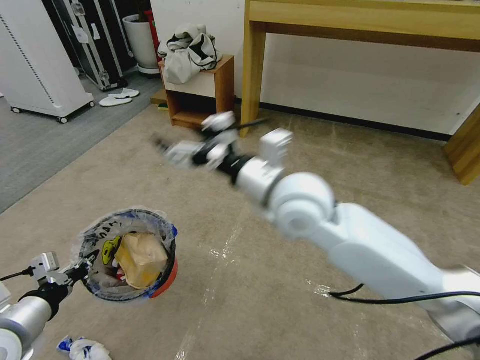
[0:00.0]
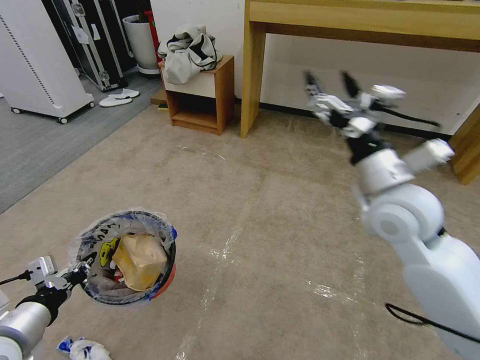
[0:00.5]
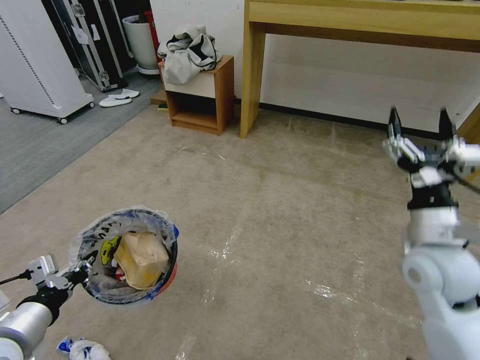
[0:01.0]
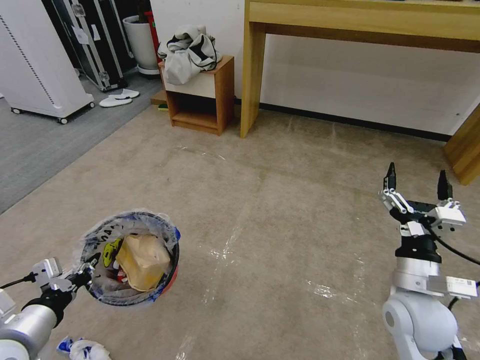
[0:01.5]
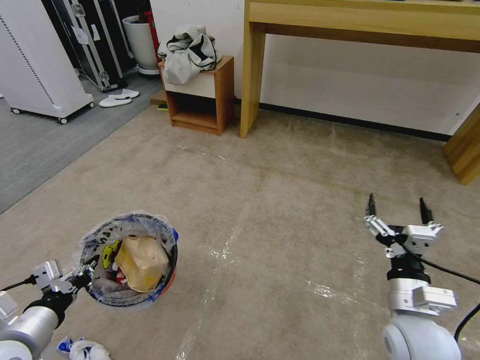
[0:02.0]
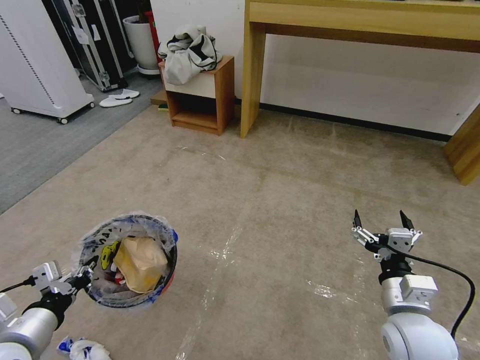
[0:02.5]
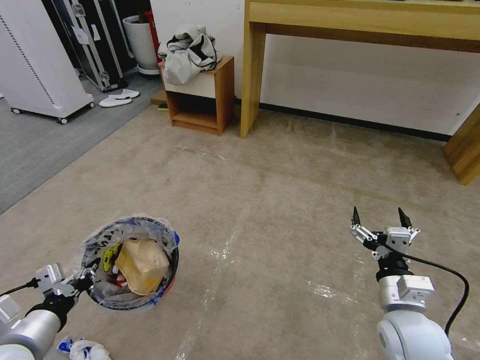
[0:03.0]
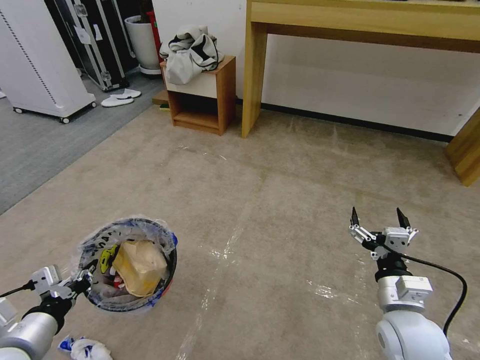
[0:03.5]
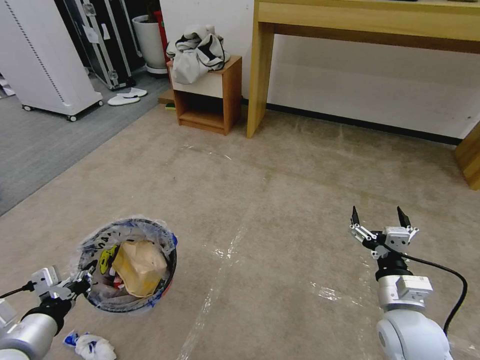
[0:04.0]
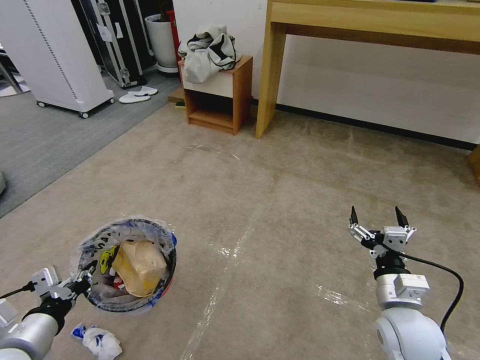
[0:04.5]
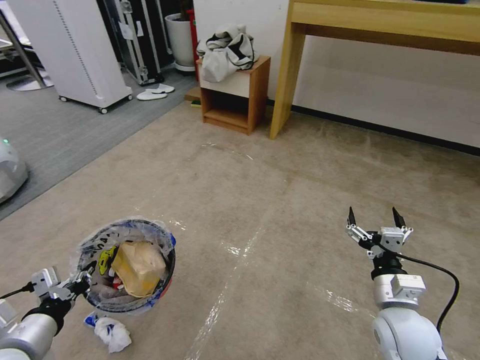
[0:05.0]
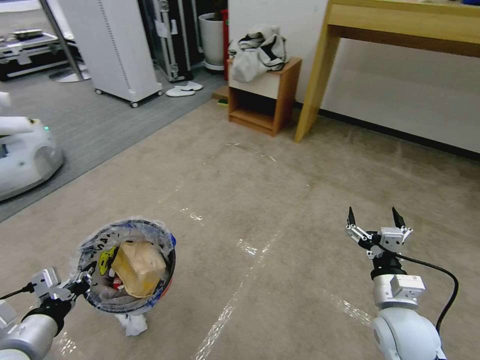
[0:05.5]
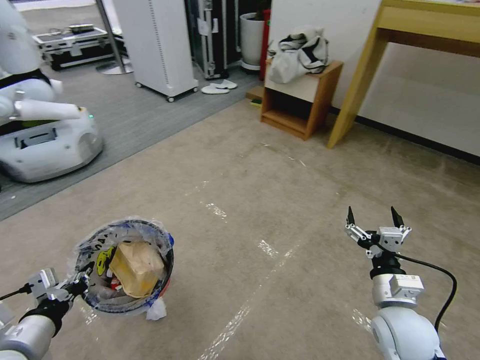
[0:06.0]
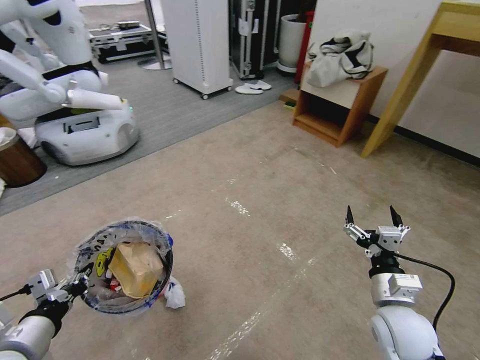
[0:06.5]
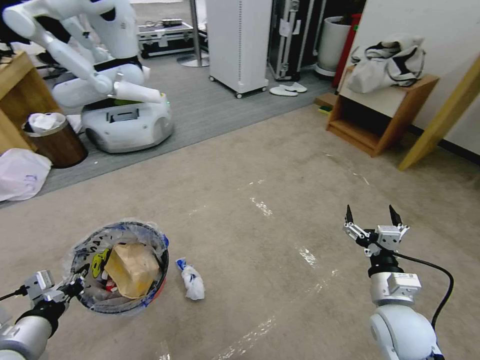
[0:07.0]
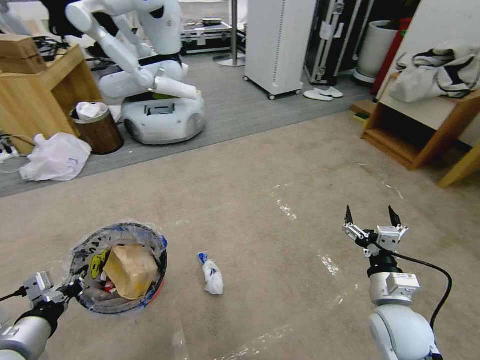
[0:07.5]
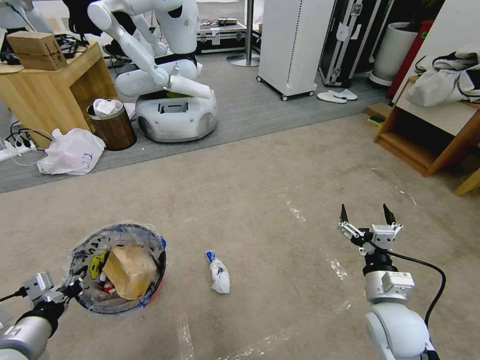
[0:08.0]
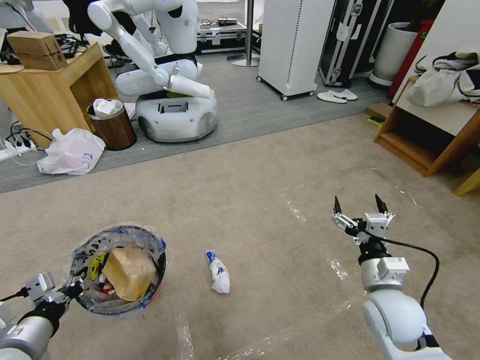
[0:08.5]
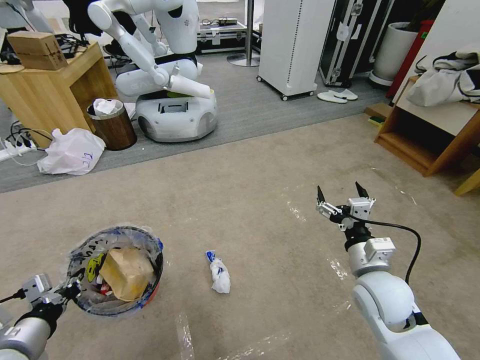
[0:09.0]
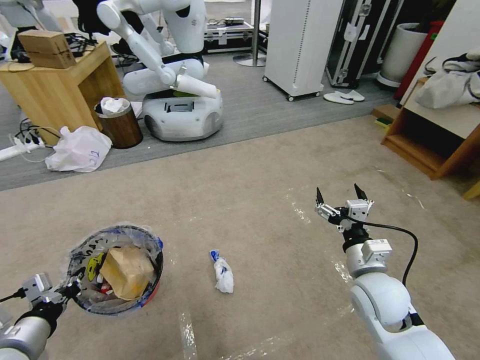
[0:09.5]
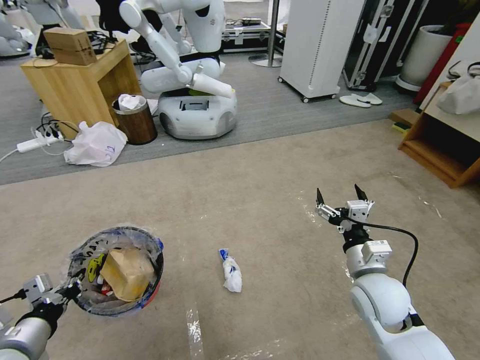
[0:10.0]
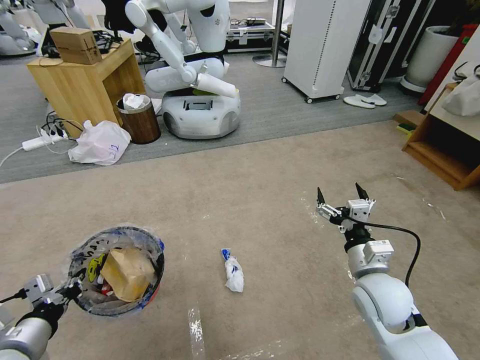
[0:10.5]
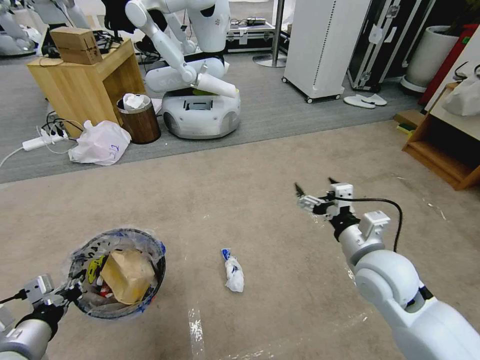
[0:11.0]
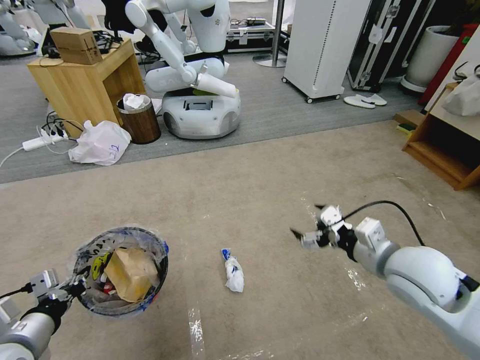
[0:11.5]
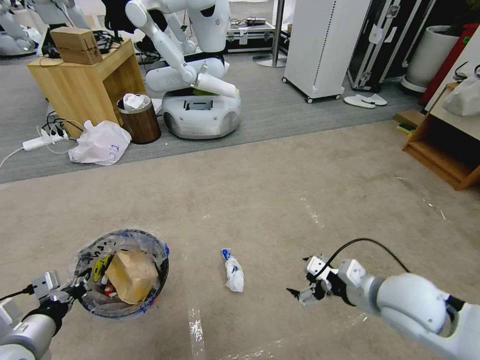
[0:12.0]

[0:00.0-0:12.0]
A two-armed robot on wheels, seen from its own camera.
Task of the whole recording: Pick up the trash bin and place the garbage on the floor into it.
0:00.0 to 0:02.0: The right gripper moves to the right, downward and backward, roughly 30 cm.
0:02.0 to 0:04.0: The grippers move only a little.
0:08.0 to 0:10.0: The right gripper shifts by some 5 cm.

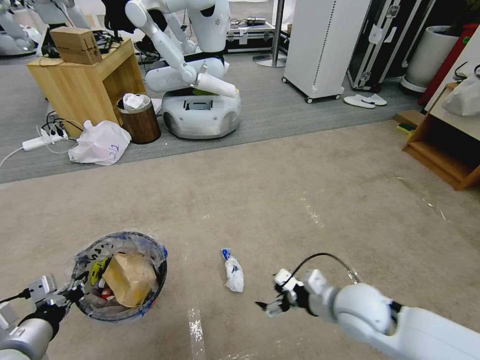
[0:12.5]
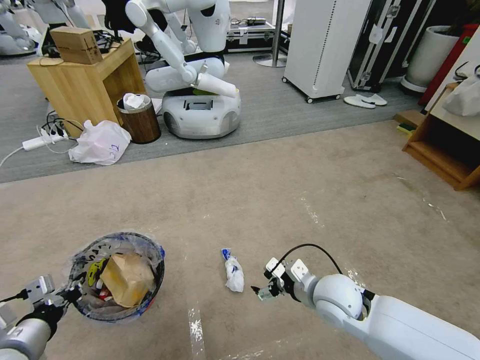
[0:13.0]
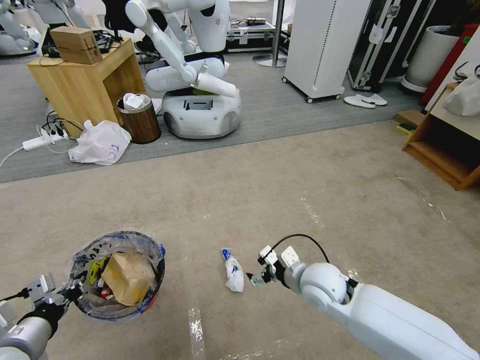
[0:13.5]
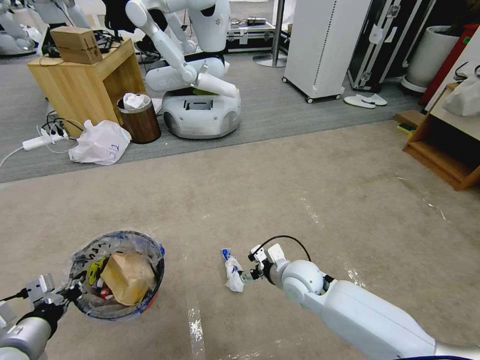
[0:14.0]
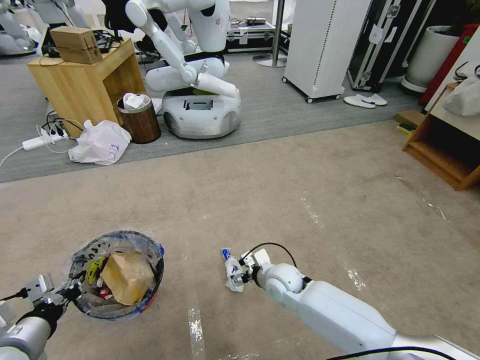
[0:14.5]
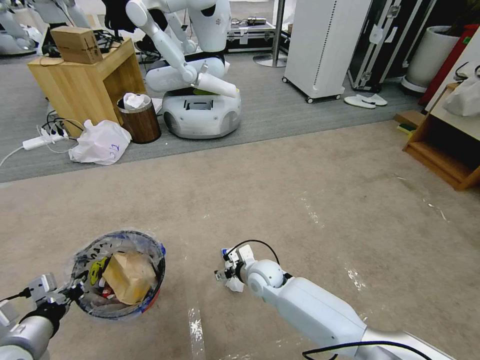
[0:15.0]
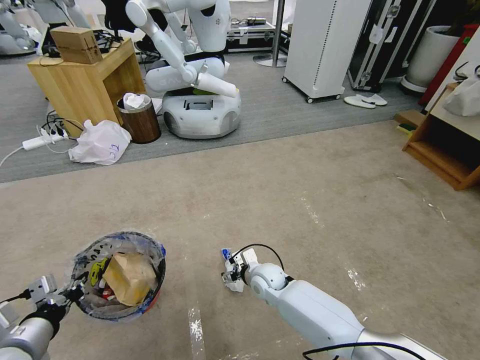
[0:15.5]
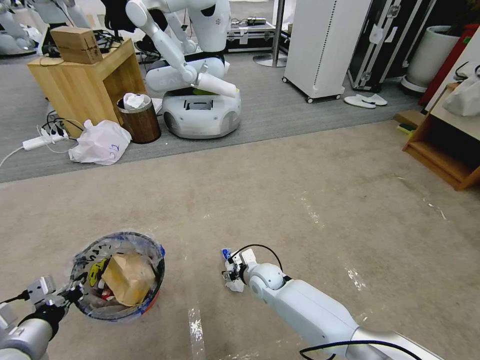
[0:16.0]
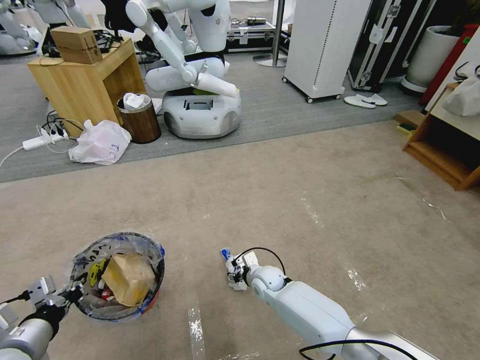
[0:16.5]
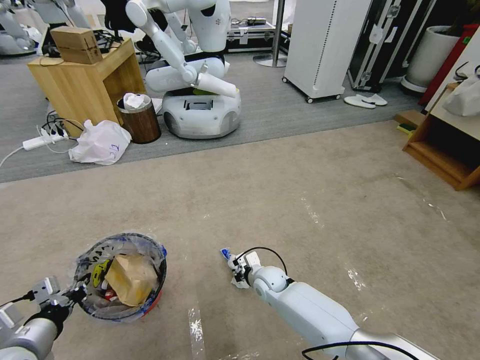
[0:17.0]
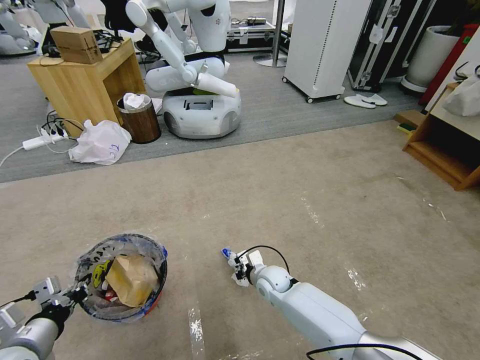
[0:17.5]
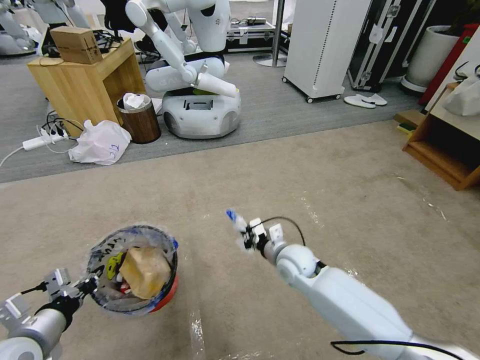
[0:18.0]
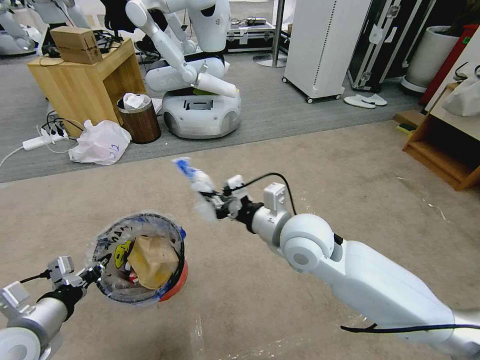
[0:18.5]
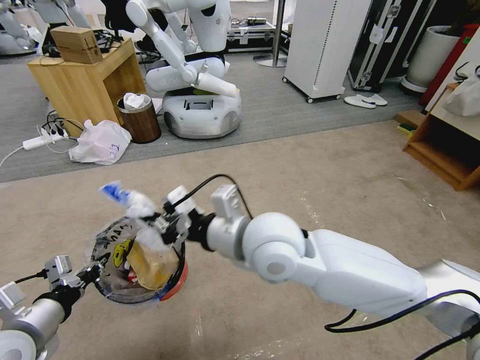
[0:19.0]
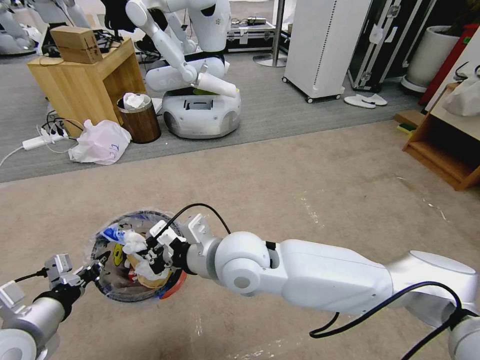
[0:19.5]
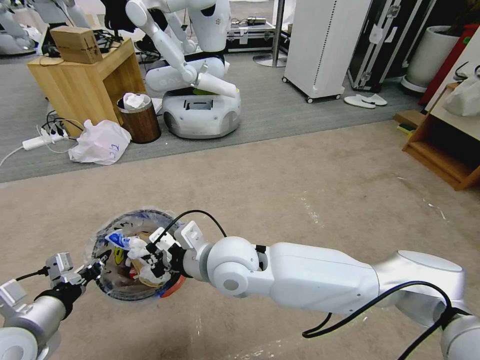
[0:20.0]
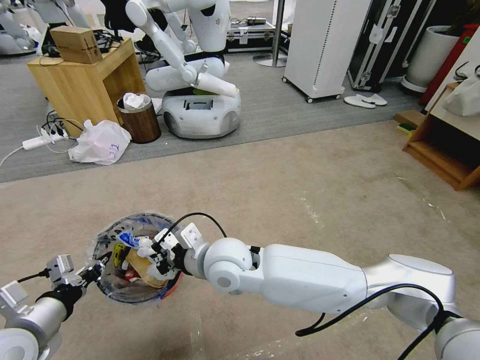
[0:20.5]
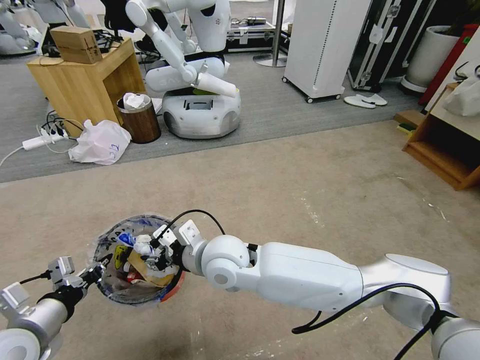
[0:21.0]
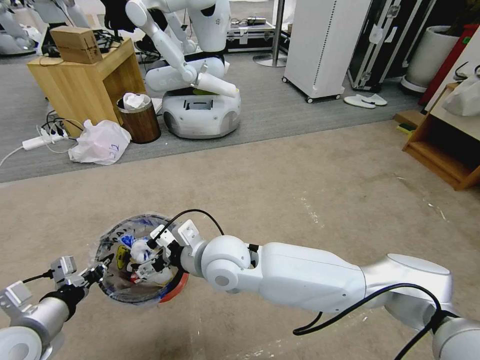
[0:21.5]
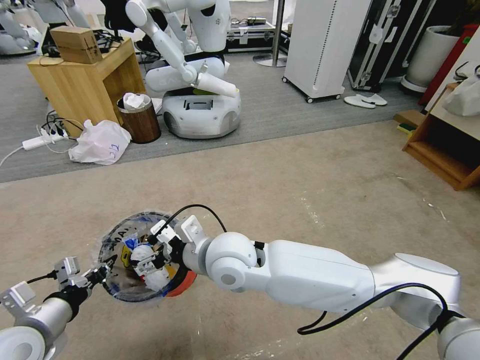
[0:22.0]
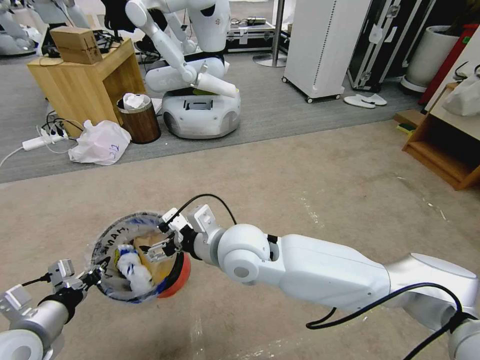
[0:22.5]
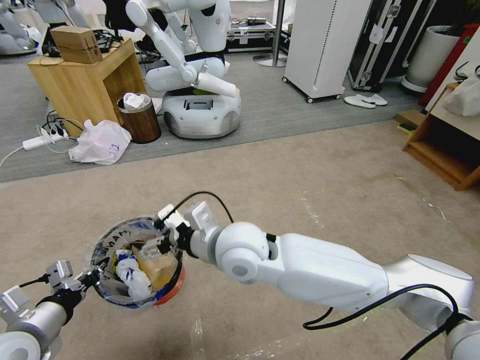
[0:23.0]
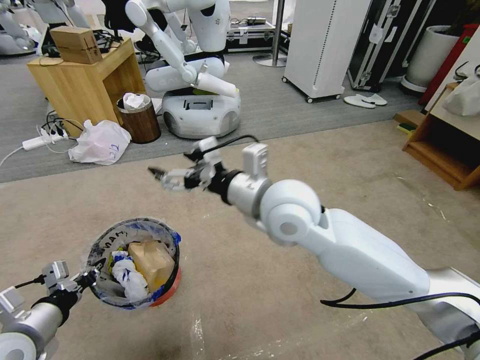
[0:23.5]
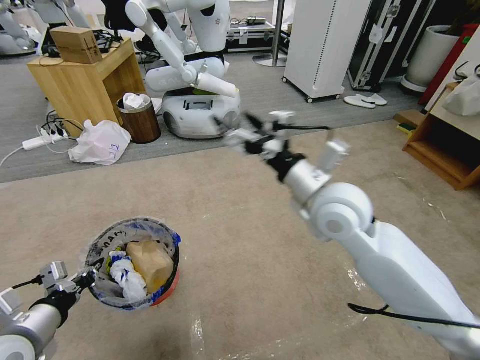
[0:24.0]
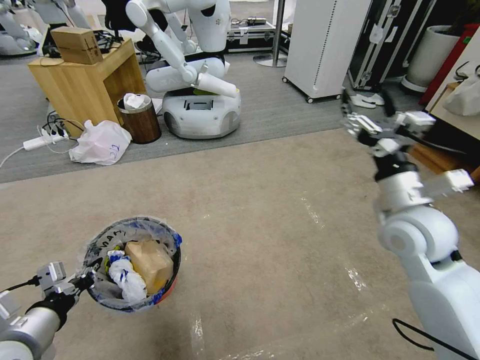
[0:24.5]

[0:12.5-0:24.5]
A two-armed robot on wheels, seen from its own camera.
Task of the whole recording: Pick up the trash bin and place the garbage on the floor into it.
0:12.5 to 0:14.5: The right gripper goes roughly 20 cm to the left, downward and forward.
0:14.5 to 0:16.5: The right gripper moves downward, about 5 cm.
0:16.5 to 0:18.5: The right gripper shifts some 30 cm upward, and closes its fingers.
0:18.5 to 0:20.5: The right gripper heads to the left, covering approximately 15 cm.
0:20.5 to 0:22.5: The right gripper shifts by some 5 cm, and opens.
0:22.5 to 0:24.5: The right gripper is displaced to the right by roughly 30 cm.

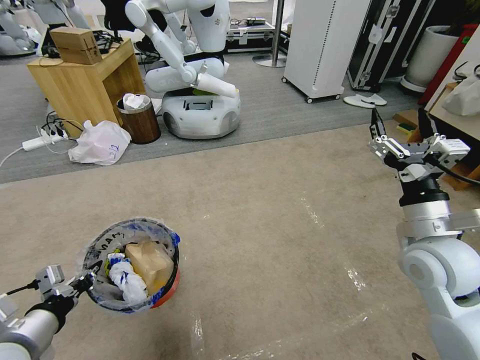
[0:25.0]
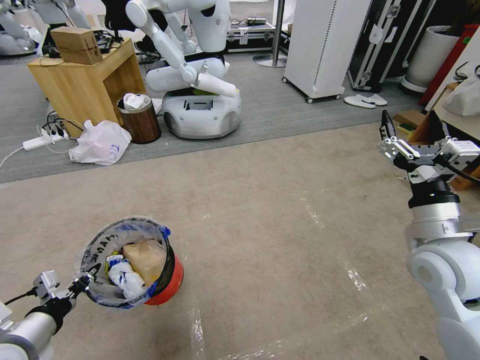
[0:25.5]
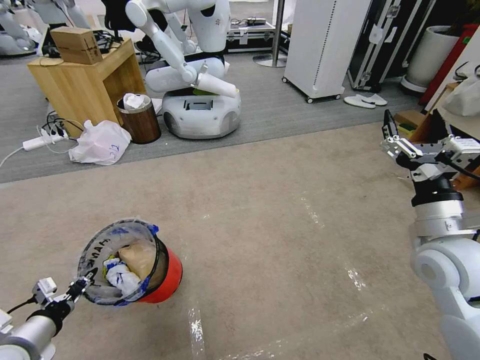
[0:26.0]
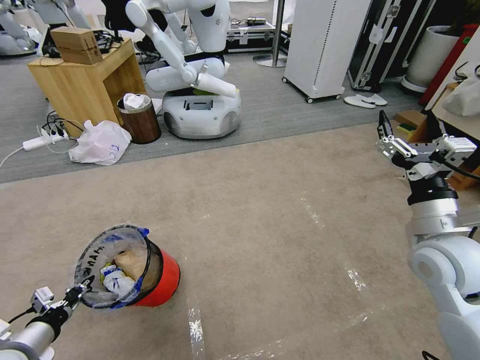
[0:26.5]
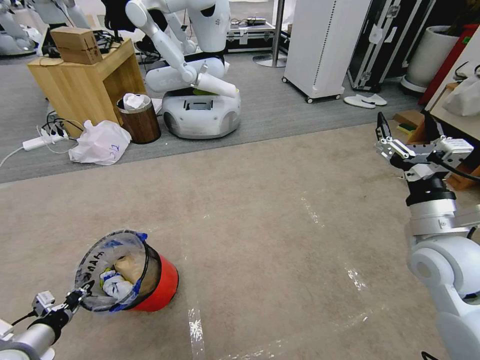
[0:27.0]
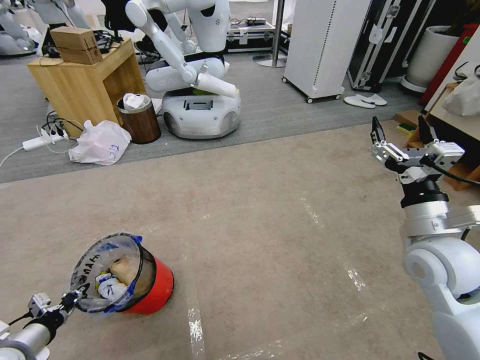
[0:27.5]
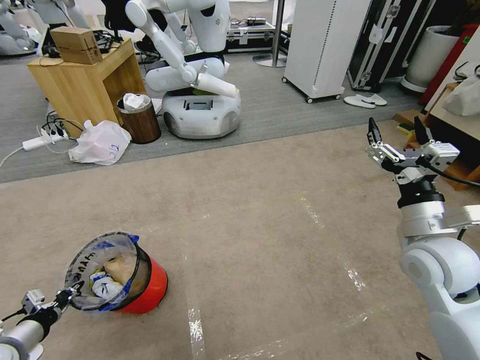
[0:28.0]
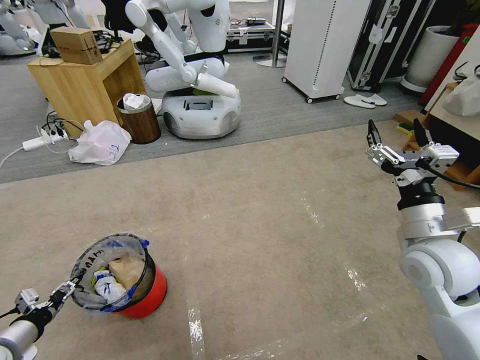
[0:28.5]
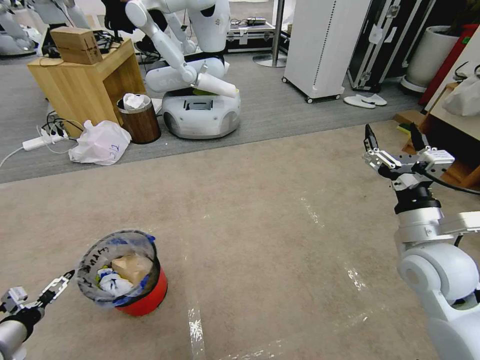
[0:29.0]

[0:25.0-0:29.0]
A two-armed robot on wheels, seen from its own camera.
Task of the whole recording: Pick up the trash bin and place the garbage on the floor into it.
0:25.0 to 0:27.0: The left gripper goes roughly 15 cm downward and to the left.
0:27.0 to 0:29.0: The left gripper opens.
